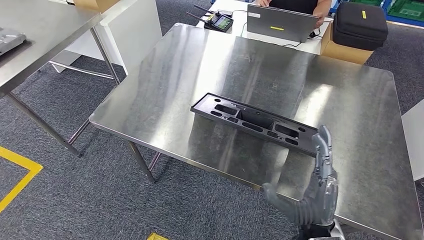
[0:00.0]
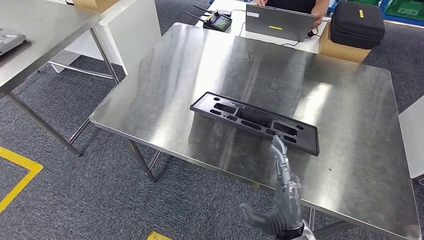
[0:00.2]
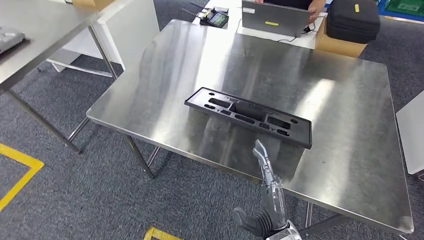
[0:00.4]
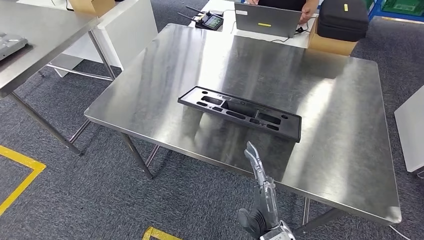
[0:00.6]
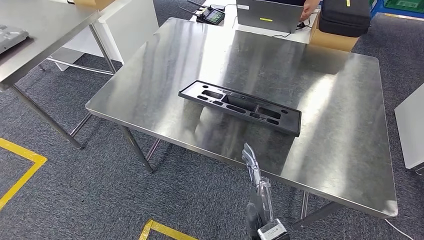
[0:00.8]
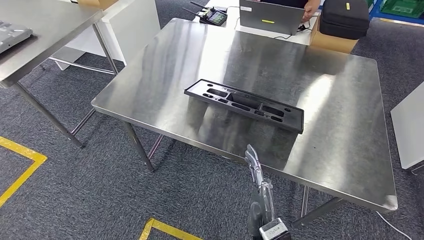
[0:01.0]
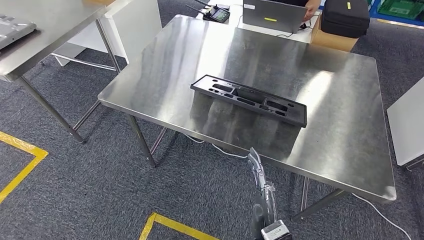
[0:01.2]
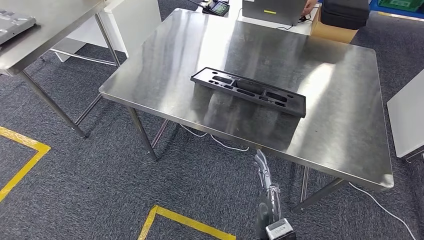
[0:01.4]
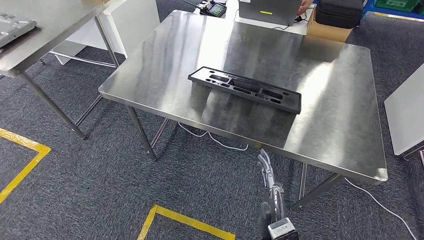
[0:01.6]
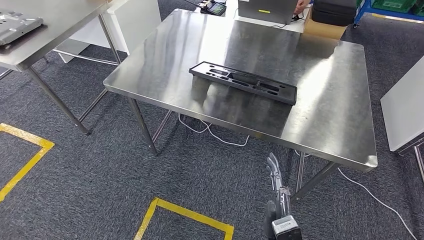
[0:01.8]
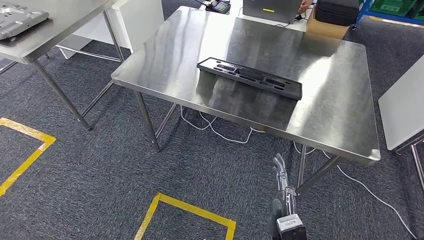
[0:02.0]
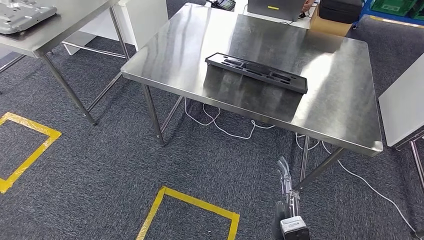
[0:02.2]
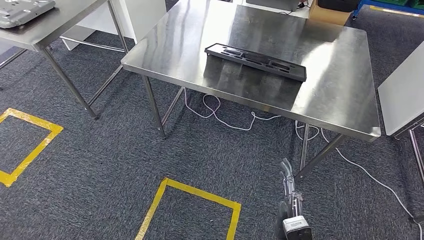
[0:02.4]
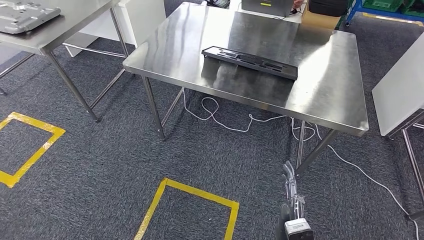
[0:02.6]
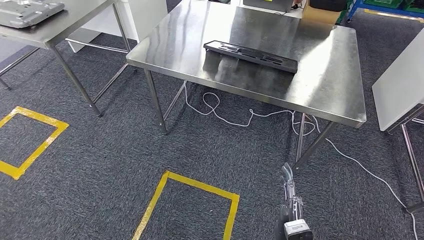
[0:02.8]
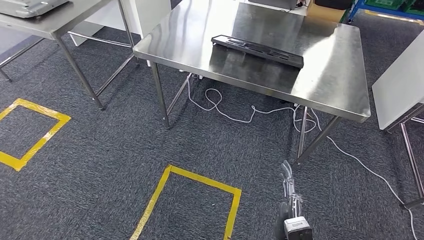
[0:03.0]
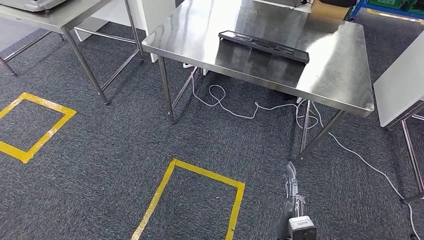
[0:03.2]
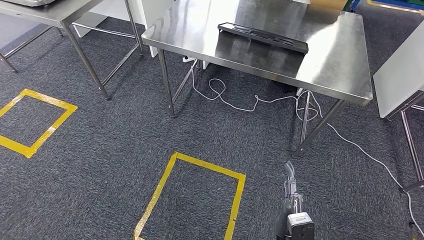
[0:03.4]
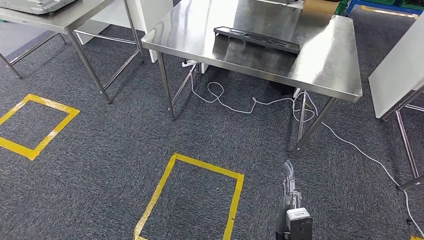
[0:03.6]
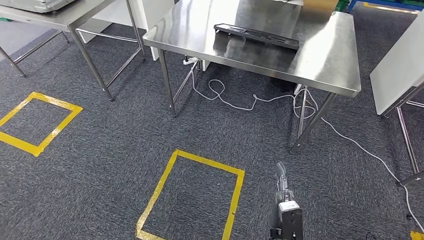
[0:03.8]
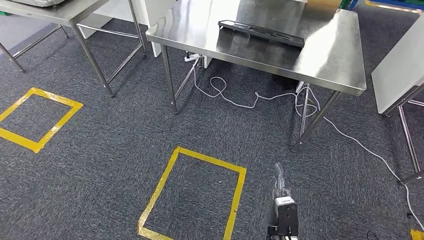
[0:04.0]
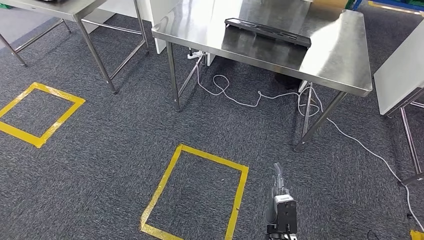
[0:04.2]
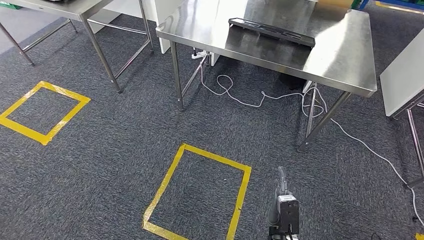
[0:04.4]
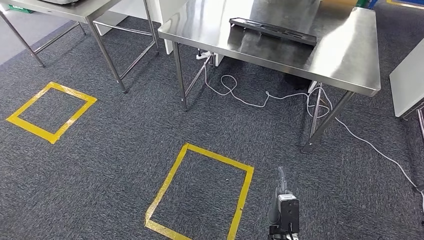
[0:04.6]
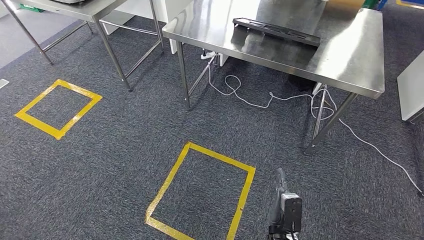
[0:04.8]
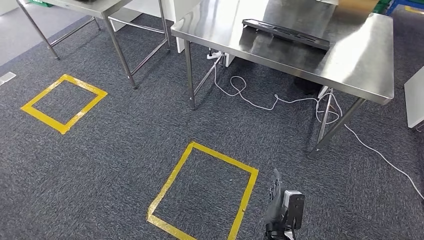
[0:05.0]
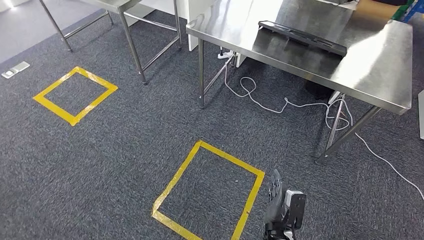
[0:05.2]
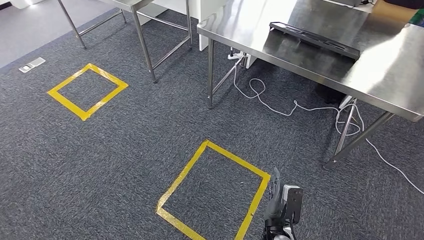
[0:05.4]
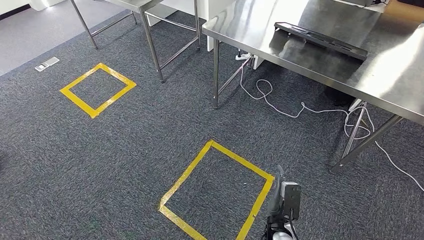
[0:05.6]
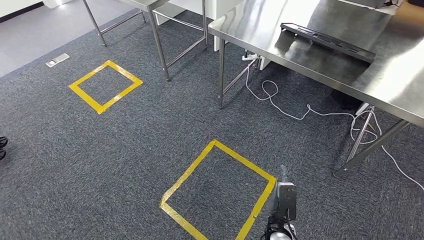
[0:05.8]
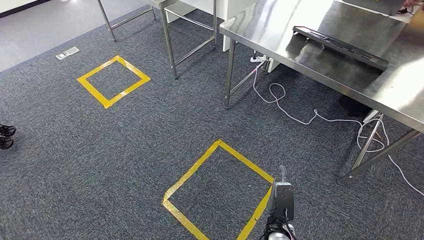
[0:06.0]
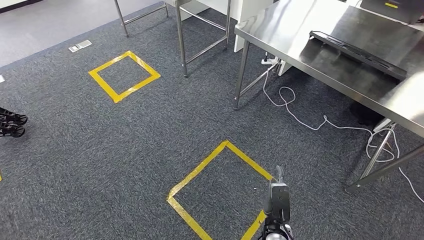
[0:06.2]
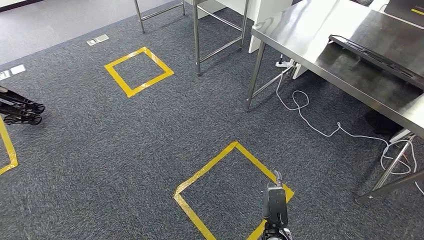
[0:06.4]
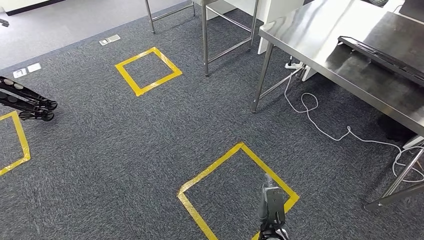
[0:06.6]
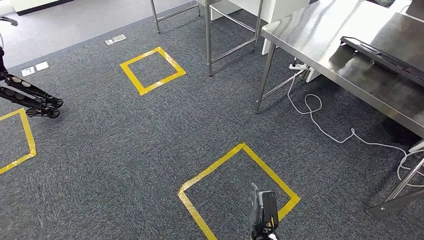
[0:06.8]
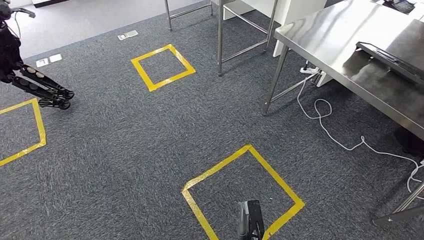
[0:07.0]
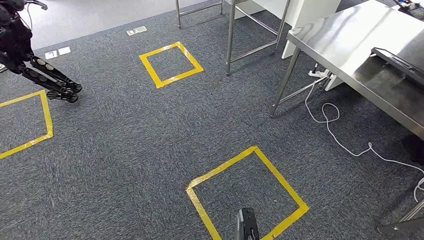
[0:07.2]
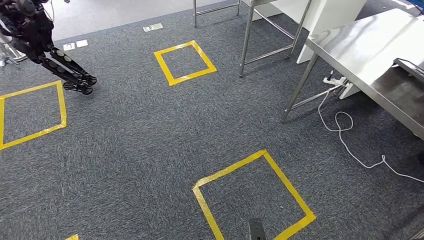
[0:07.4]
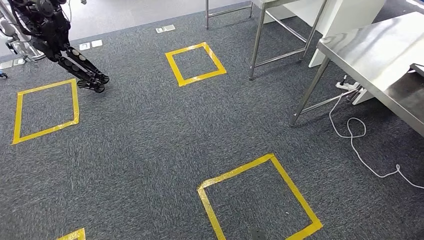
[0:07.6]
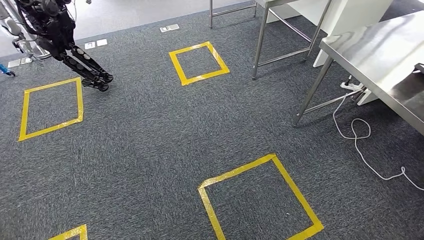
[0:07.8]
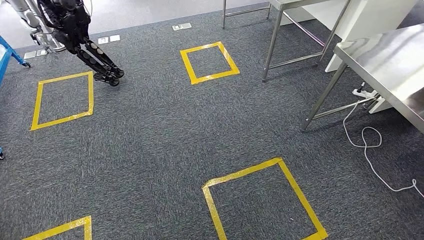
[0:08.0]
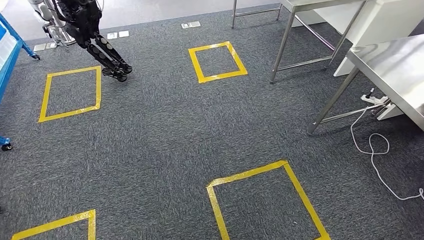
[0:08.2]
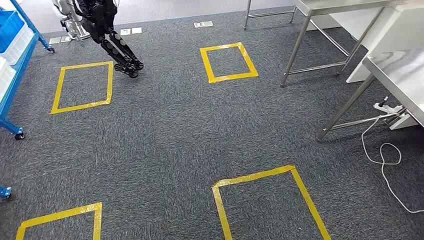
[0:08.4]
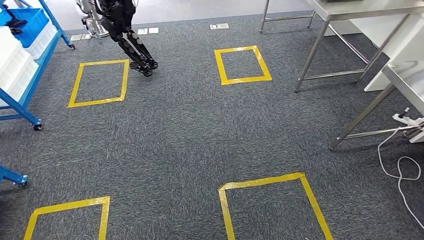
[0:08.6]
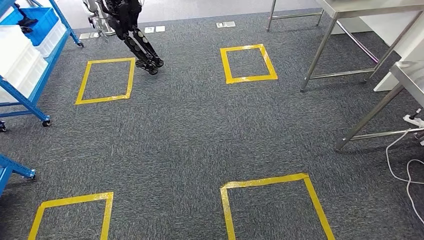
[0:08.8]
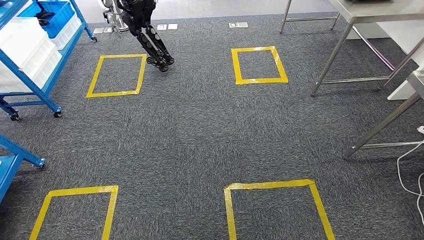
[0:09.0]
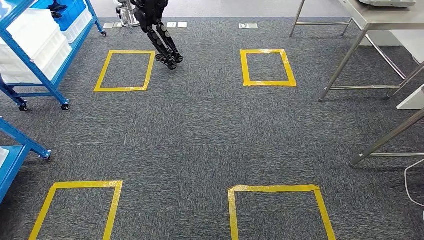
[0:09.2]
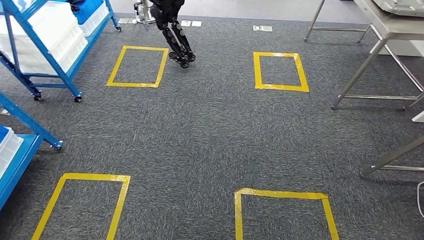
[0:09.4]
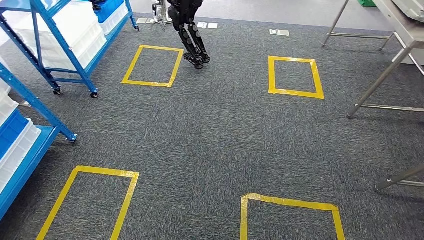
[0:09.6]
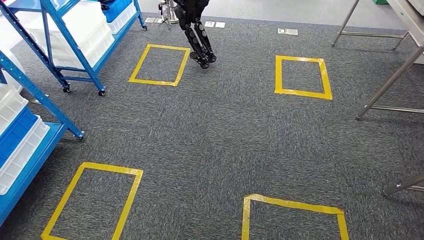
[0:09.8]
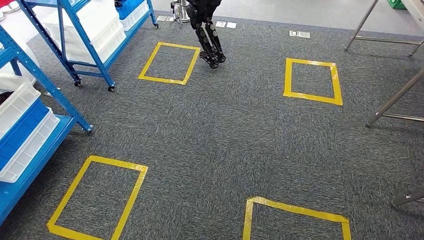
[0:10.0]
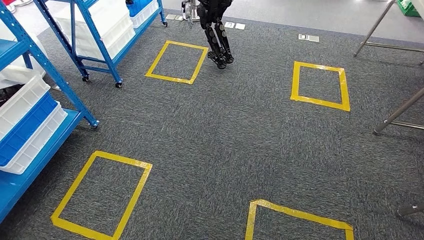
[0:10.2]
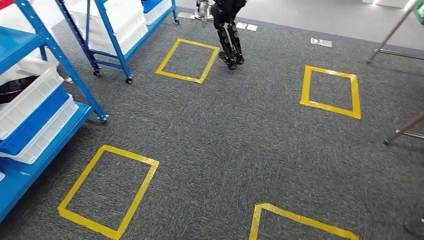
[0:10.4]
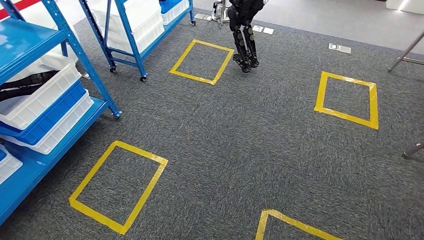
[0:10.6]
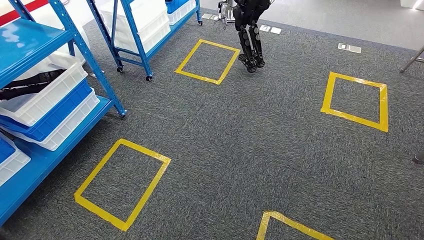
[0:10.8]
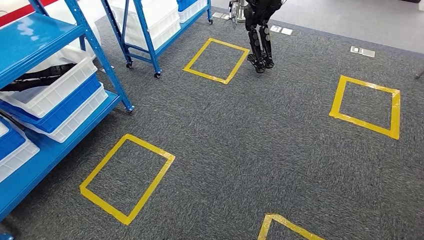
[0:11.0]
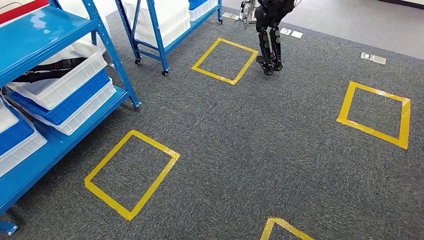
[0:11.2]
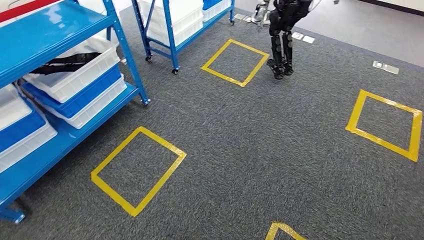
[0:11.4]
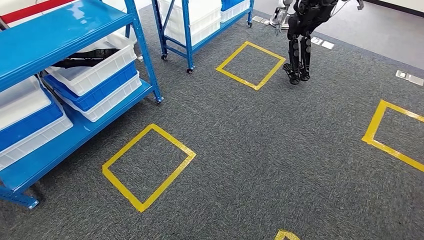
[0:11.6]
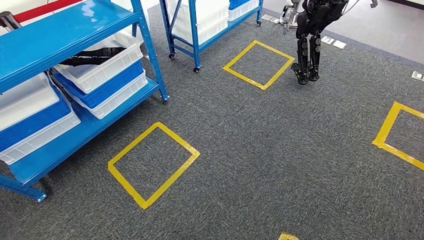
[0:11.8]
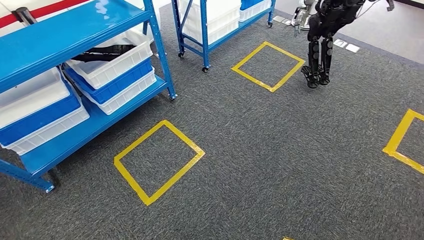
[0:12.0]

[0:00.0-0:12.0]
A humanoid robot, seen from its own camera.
Step, 0:00.0 to 0:04.4: Insert the large material into the corresponding hole on the workbench.

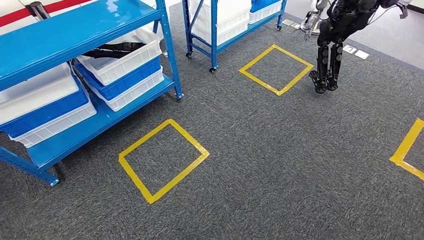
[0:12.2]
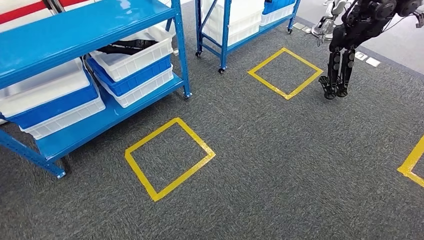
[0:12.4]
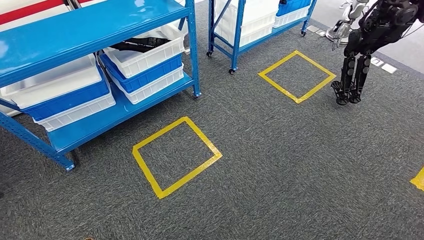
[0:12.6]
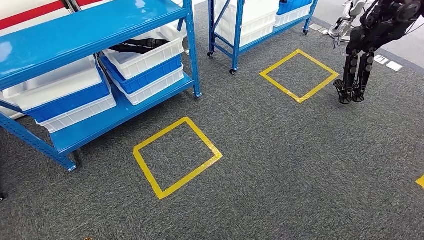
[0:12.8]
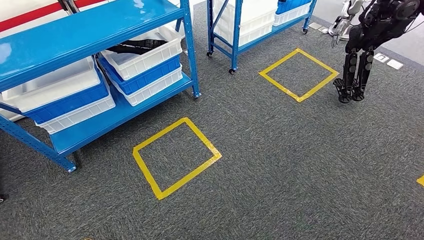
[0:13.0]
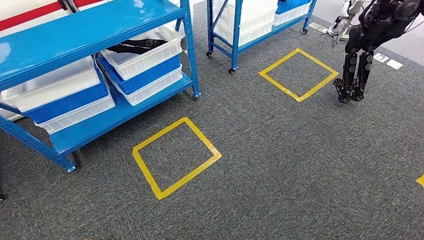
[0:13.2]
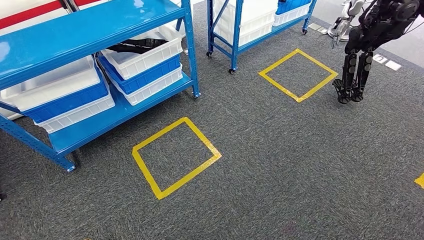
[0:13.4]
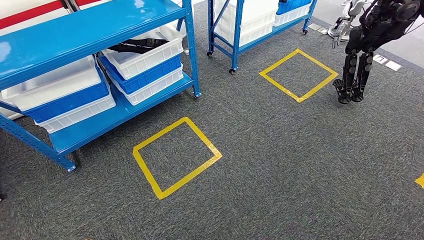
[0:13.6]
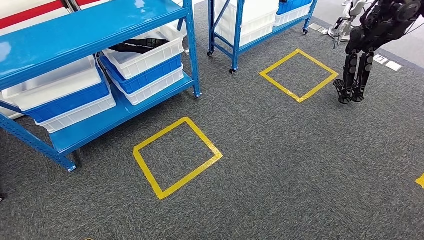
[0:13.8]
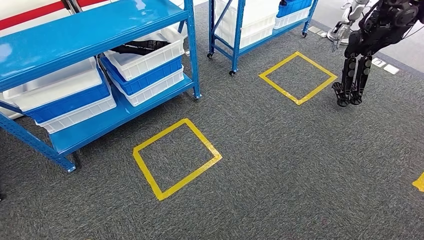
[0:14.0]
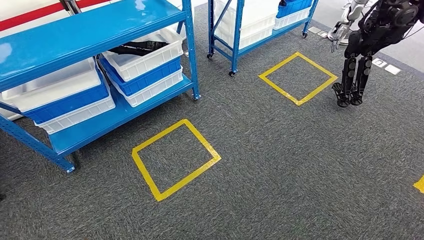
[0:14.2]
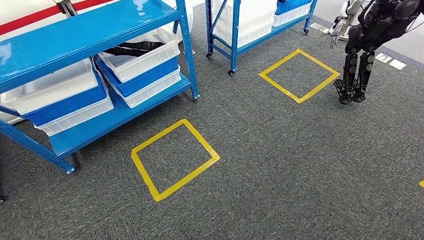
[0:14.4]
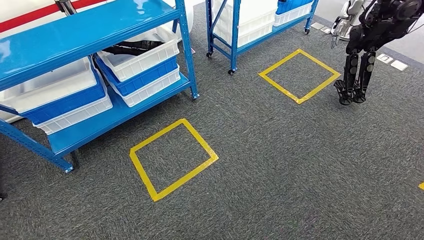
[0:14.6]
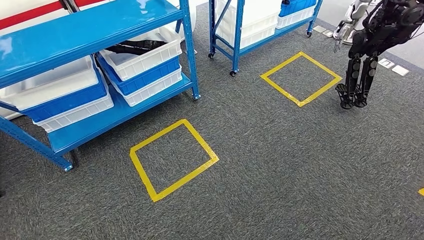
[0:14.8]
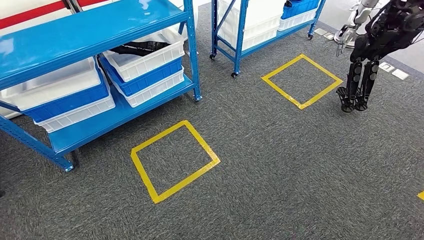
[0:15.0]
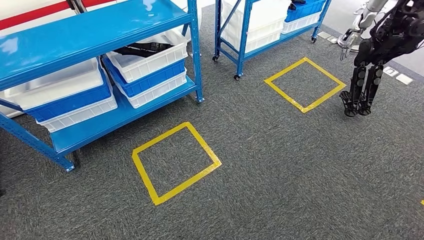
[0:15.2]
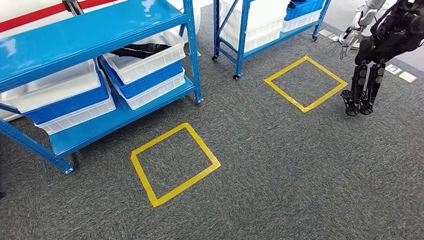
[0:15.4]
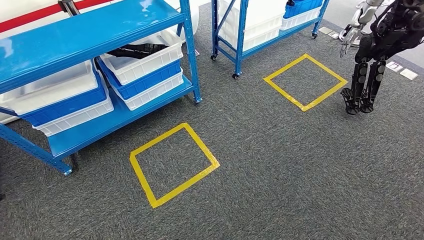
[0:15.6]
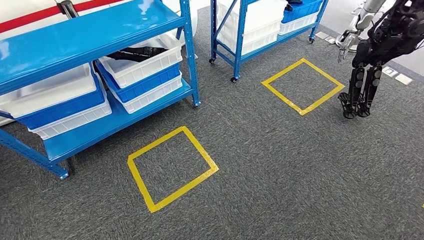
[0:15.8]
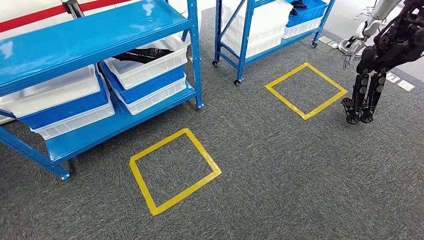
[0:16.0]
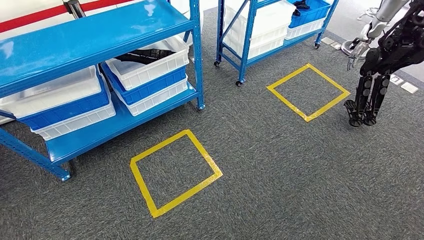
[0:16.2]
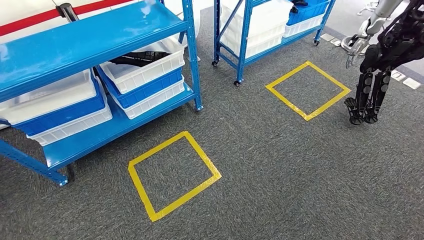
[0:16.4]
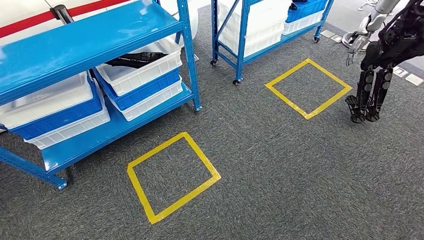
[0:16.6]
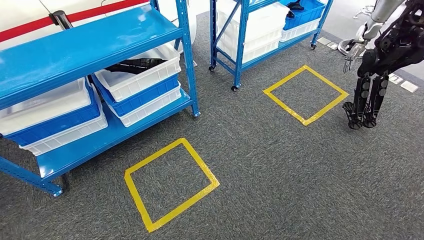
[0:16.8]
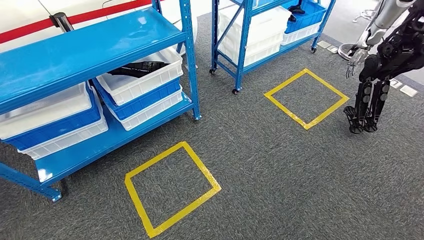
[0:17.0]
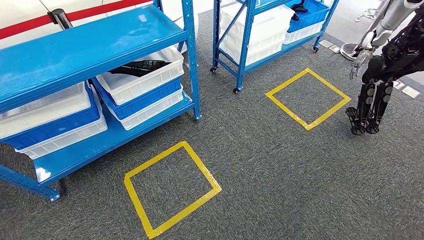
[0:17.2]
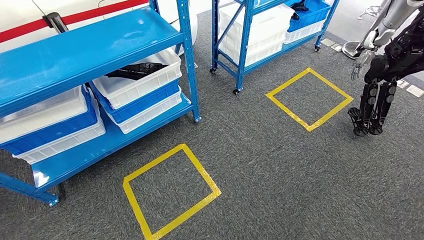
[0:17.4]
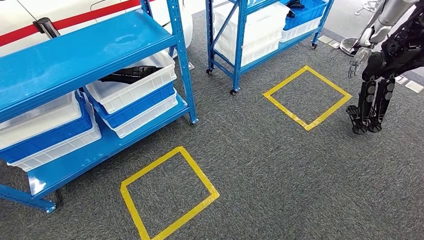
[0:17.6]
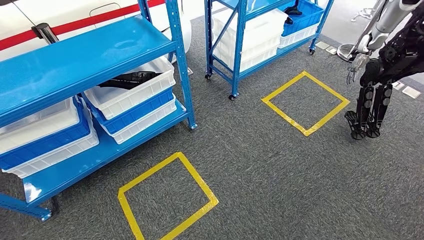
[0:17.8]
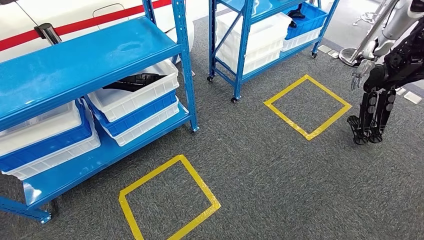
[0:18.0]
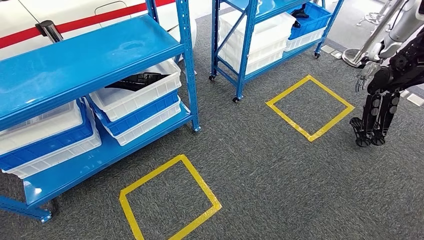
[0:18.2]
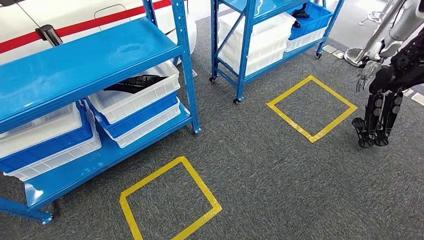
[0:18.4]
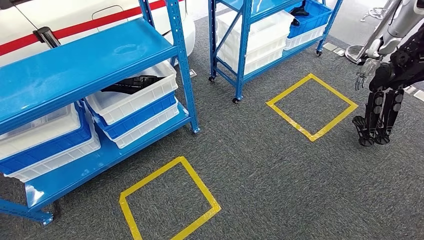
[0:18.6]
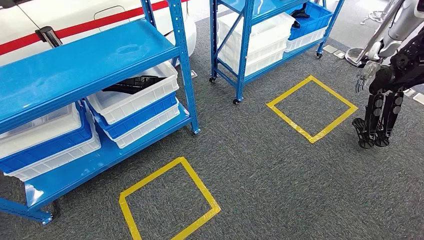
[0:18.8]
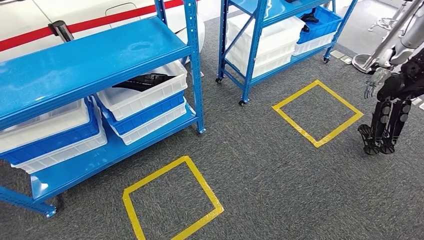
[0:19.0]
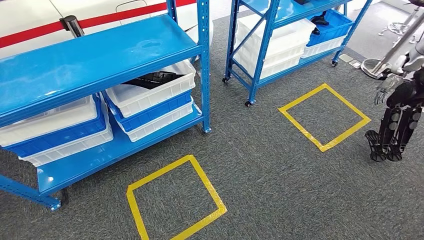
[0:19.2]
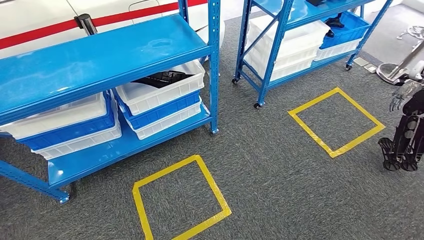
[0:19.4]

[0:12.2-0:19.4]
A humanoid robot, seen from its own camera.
0:13.6 to 0:15.0: The hands move only a little.
